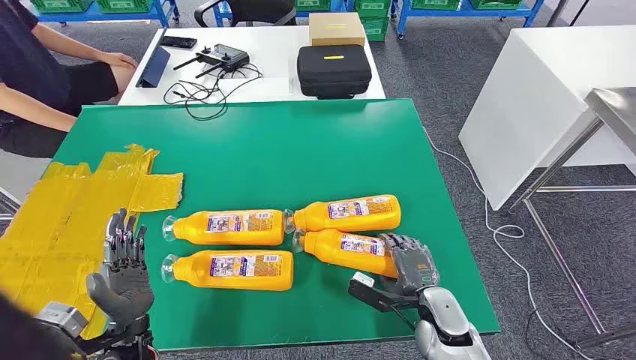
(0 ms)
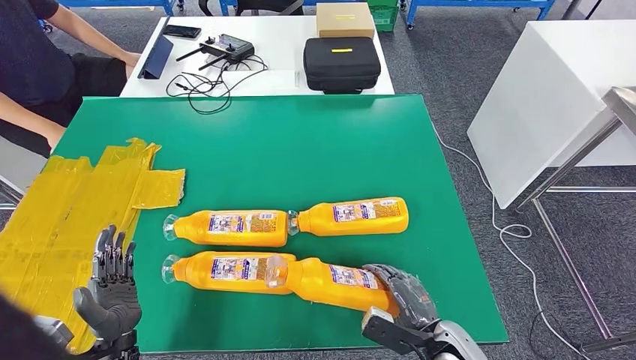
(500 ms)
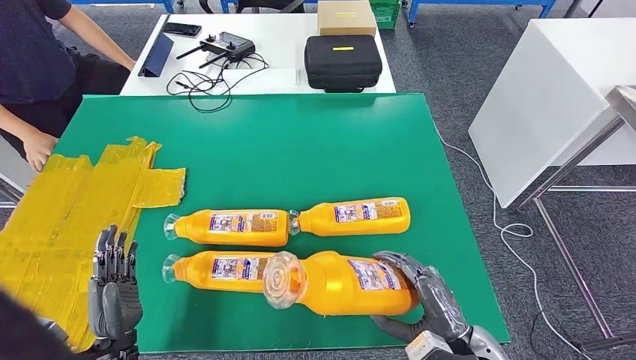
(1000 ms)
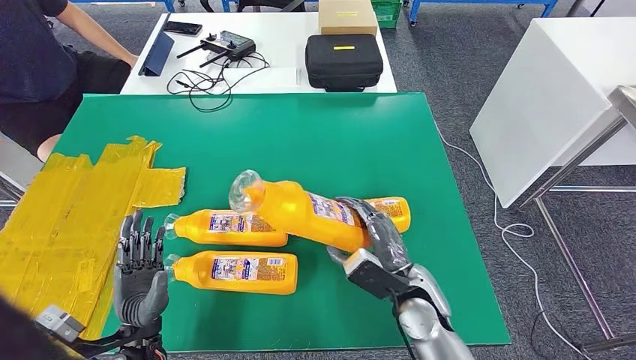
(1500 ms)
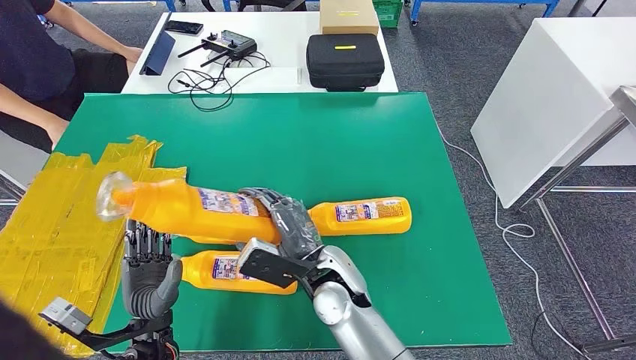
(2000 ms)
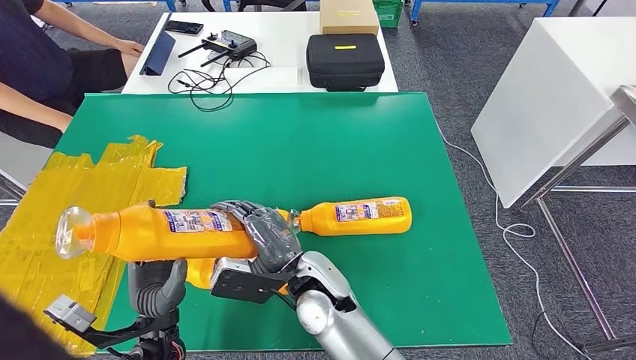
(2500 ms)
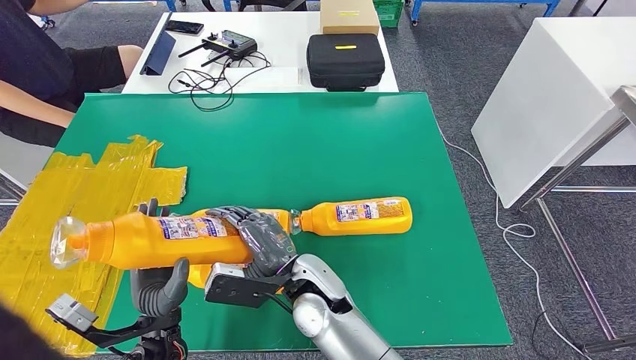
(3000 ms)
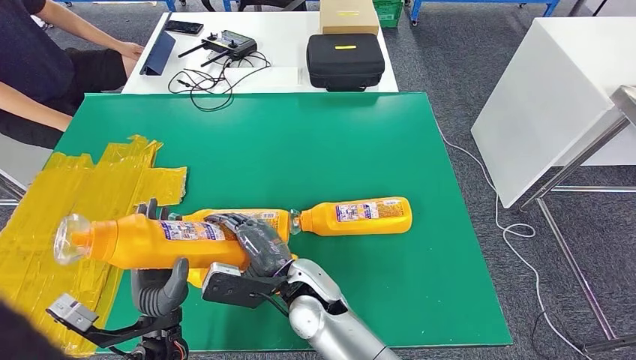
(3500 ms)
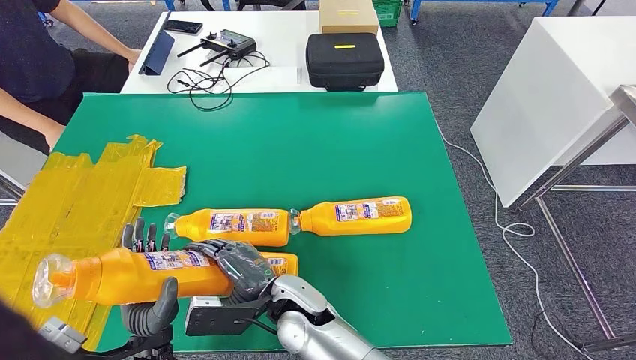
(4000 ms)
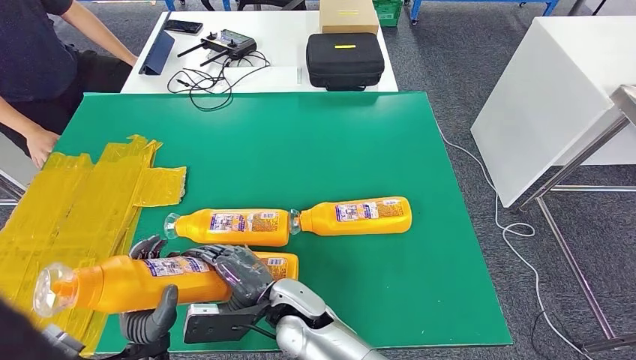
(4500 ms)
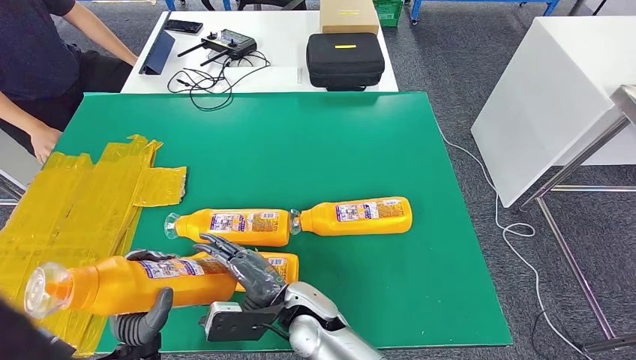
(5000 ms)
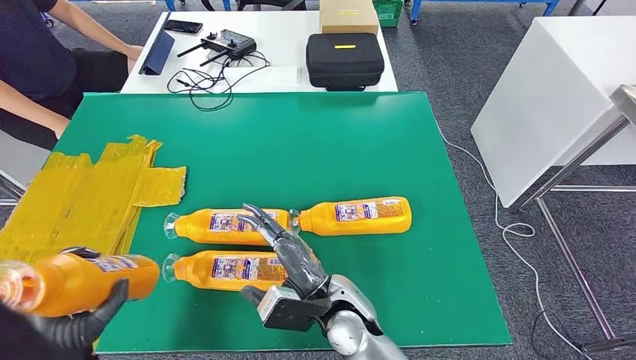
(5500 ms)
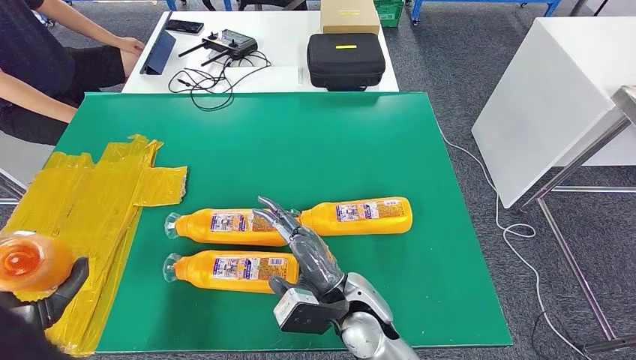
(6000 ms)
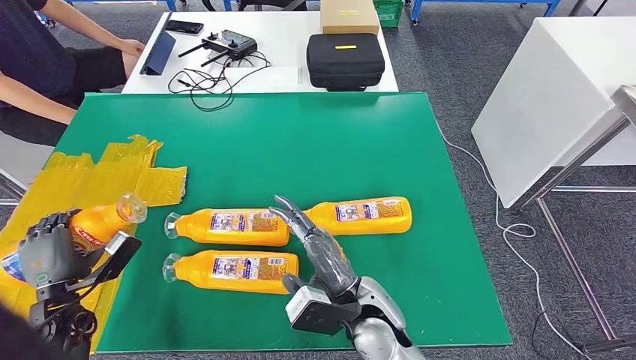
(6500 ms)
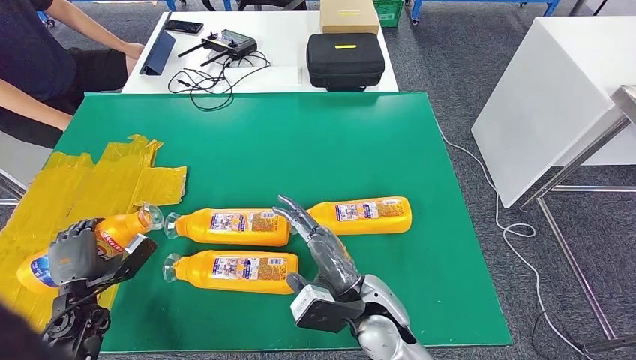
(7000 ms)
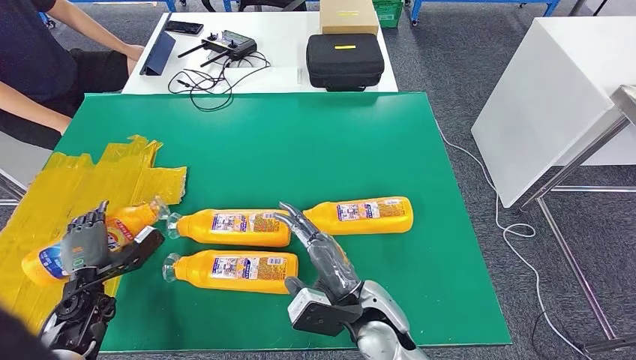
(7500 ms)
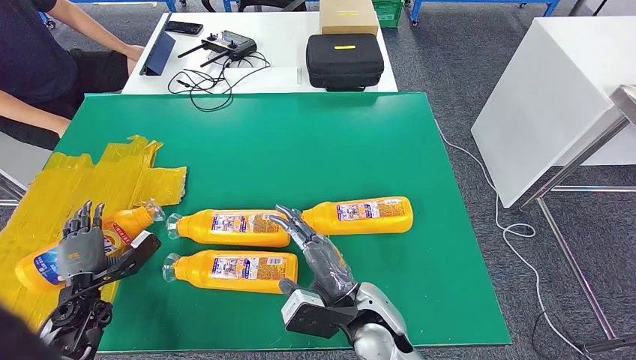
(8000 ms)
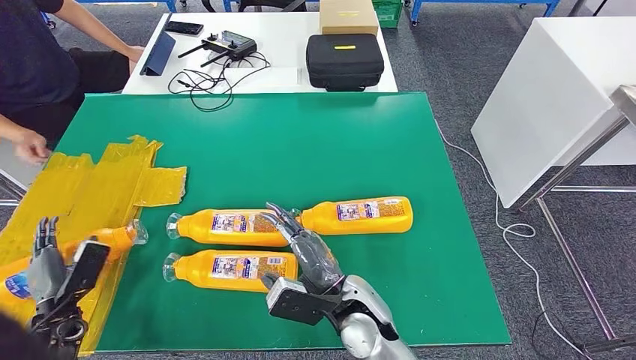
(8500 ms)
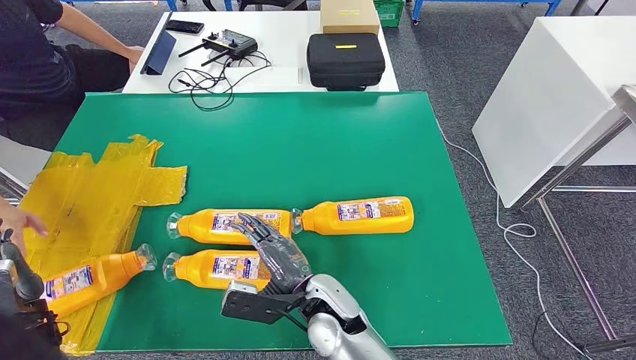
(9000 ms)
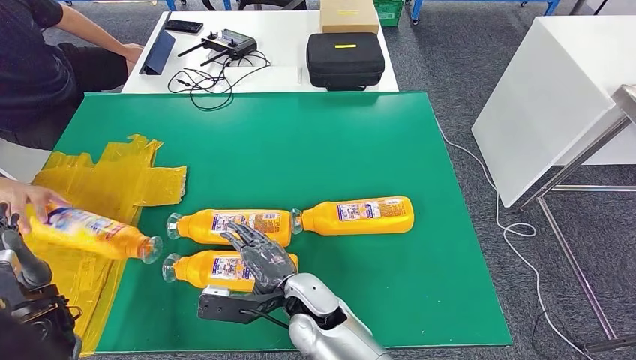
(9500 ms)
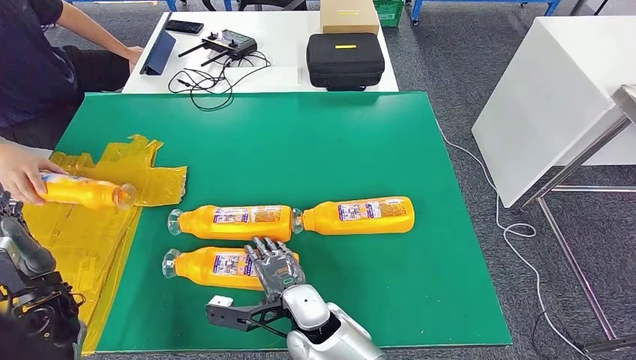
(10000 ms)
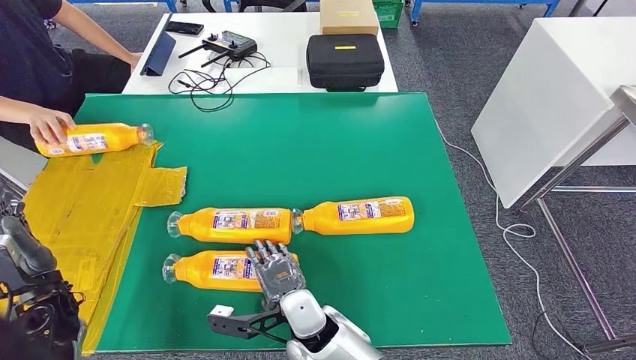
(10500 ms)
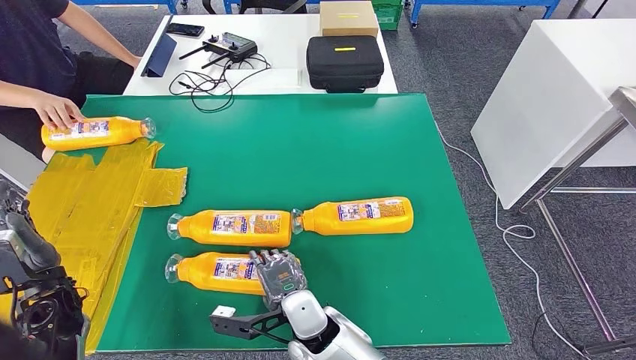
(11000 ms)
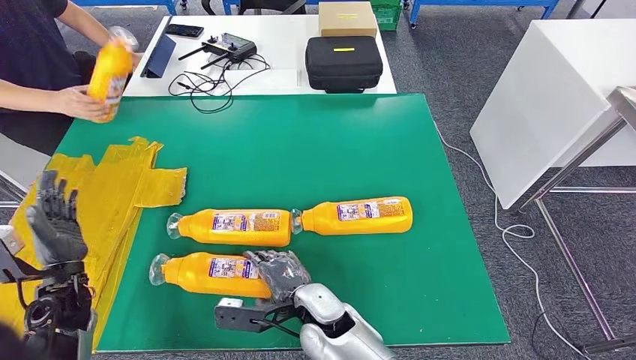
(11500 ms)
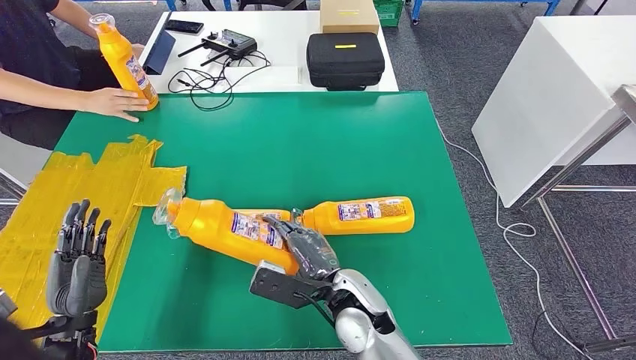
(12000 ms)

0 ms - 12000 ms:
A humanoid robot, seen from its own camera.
Step, 0 ms - 1500 ms: Take the bottle from the table.
Step, 3000 ms - 9000 ms: Flip the bottle to face forward.
2000 ms - 4000 ms: The right hand moves some 5 cm.
4000 ms - 6000 ms: The left hand goes about 15 cm to the left. Meanwhile the right hand moves to the right, some 5 cm.
6000 ms - 8000 ms: The left hand heads downward and forward, covering approximately 10 cm.
8000 ms - 10000 ms: The right hand goes about 5 cm to the left; the left hand is displaced upward by about 5 cm.
10000 ms - 12000 ms: The right hand shifts approximately 5 cm to the right. The left hand travels backward and to the right by some 10 cm.

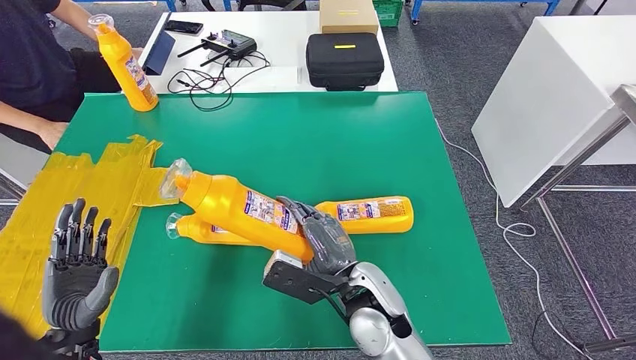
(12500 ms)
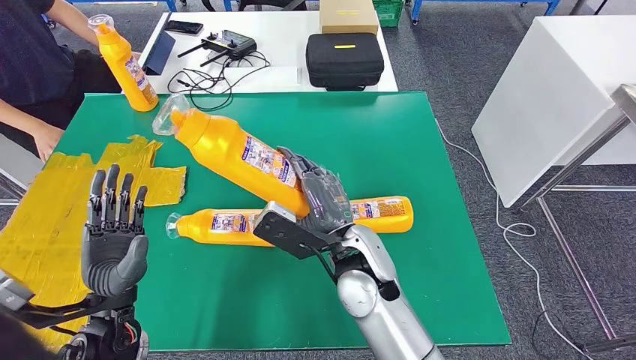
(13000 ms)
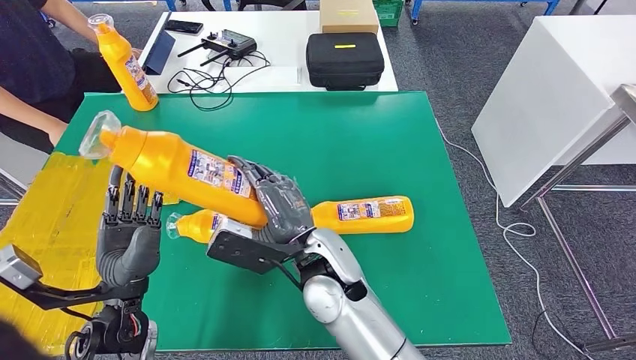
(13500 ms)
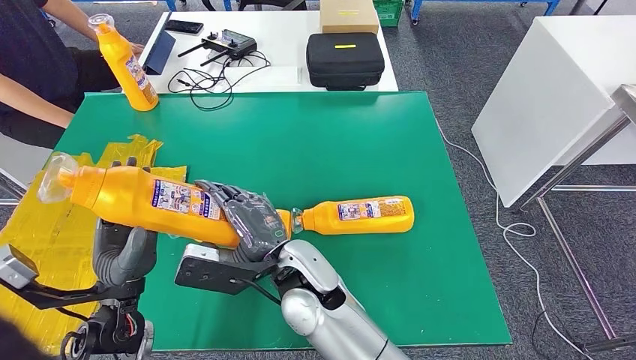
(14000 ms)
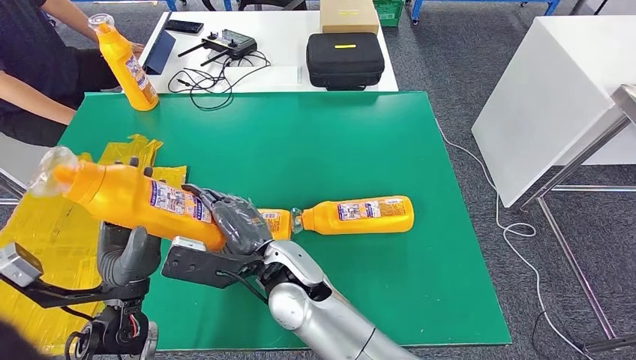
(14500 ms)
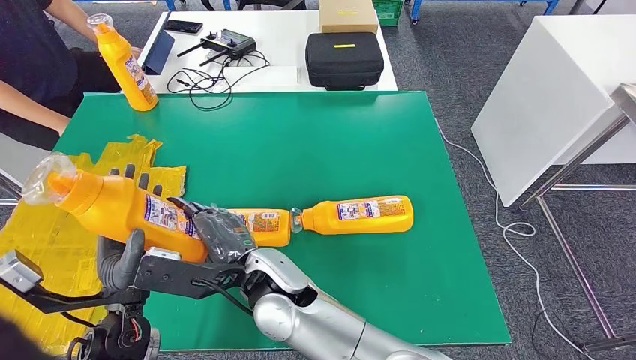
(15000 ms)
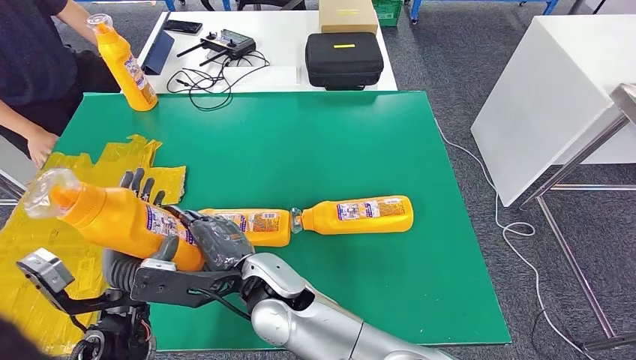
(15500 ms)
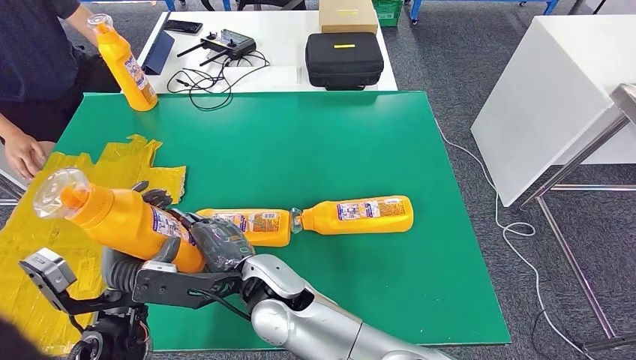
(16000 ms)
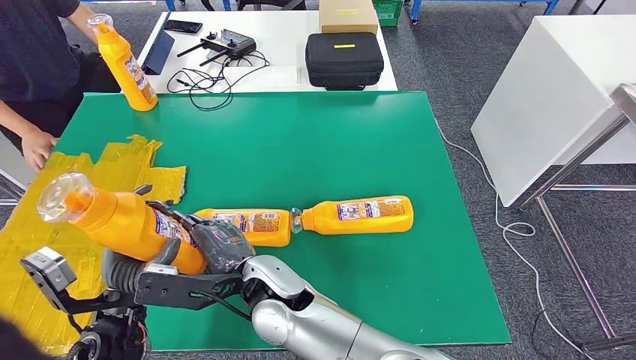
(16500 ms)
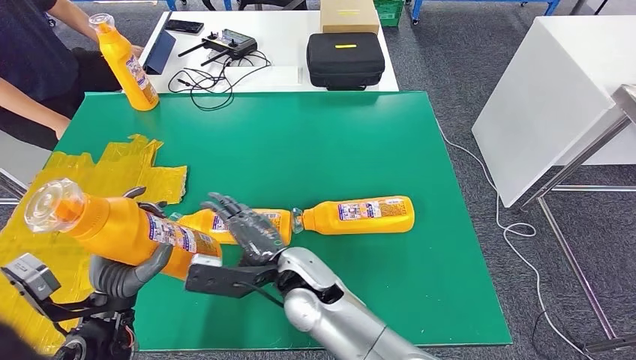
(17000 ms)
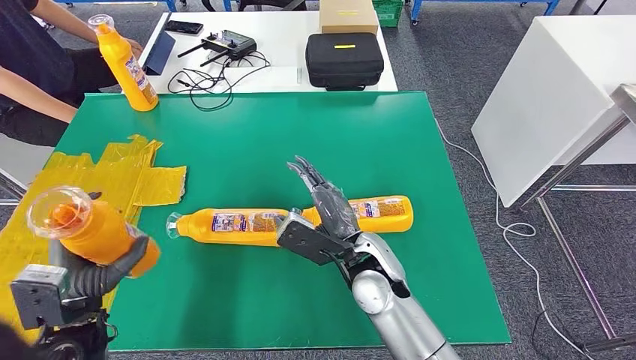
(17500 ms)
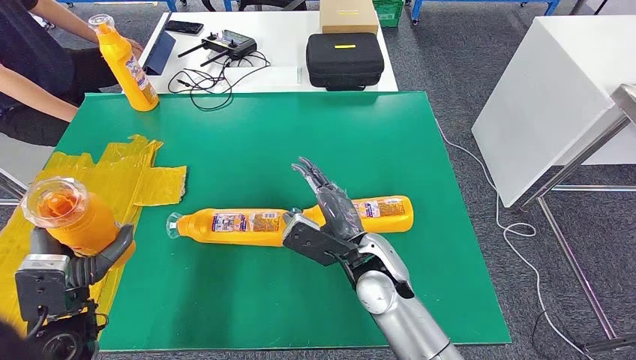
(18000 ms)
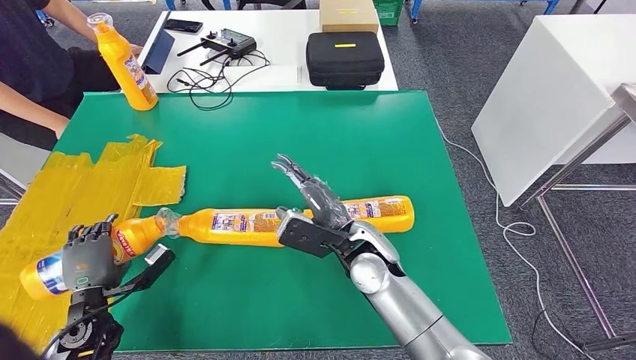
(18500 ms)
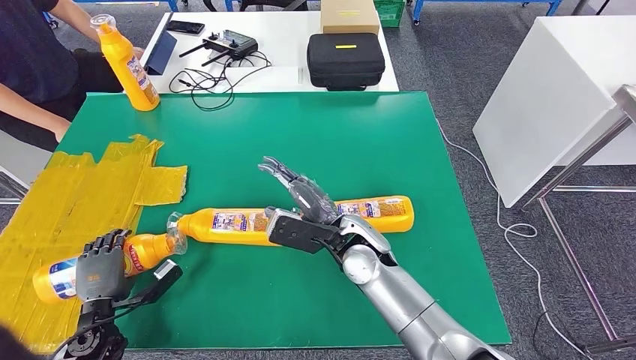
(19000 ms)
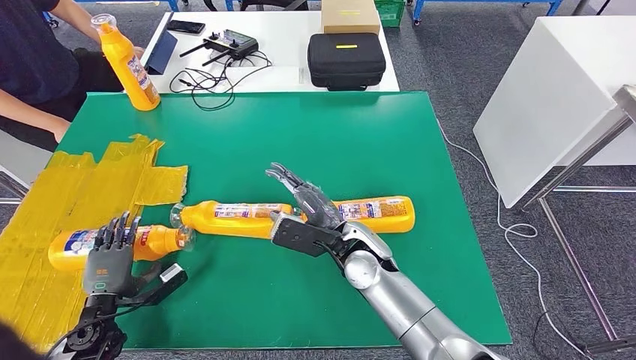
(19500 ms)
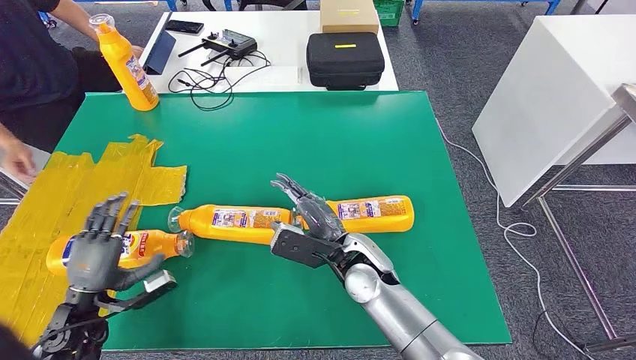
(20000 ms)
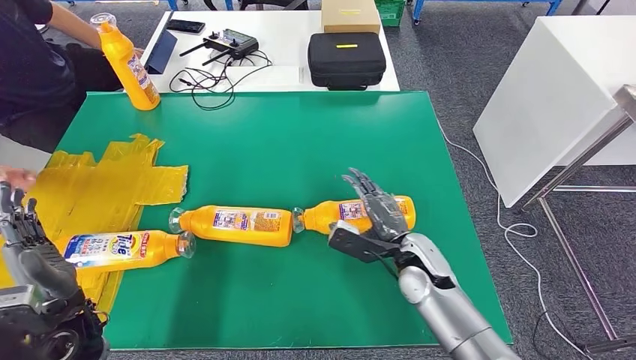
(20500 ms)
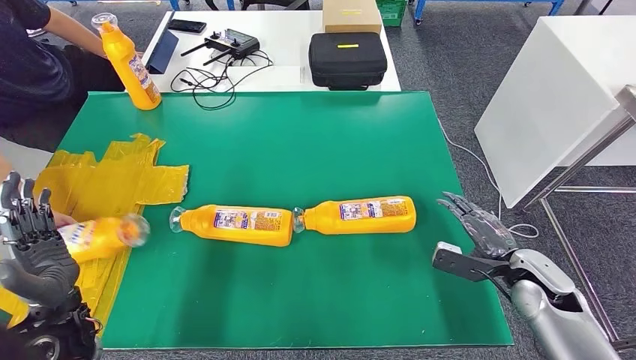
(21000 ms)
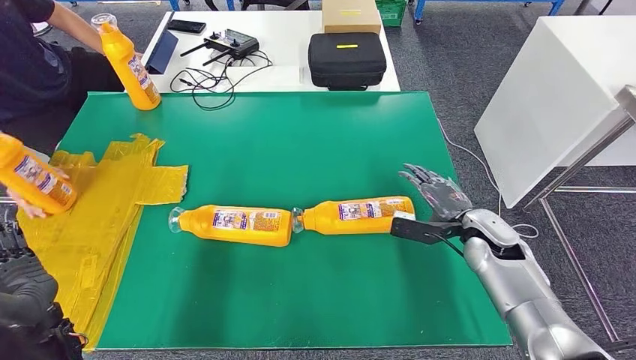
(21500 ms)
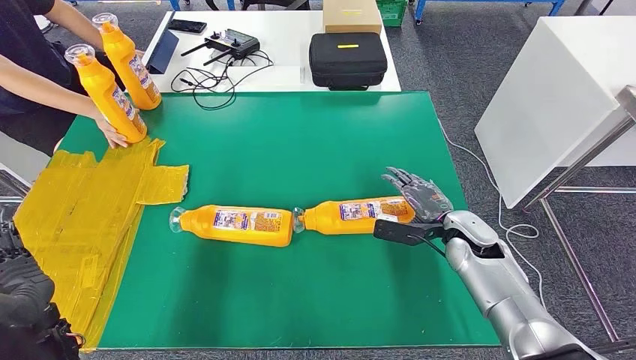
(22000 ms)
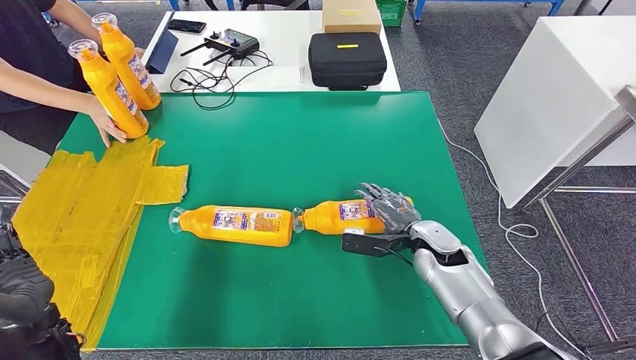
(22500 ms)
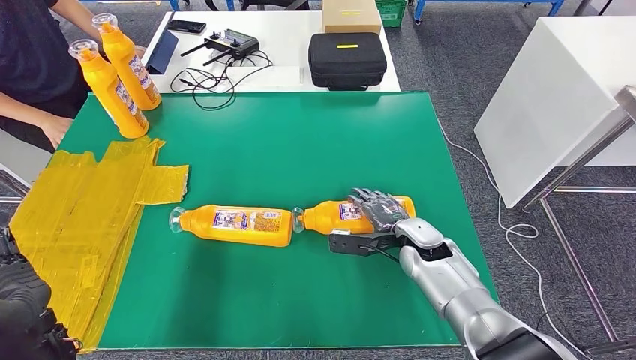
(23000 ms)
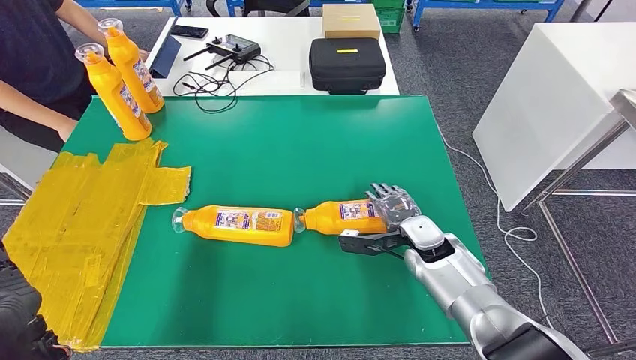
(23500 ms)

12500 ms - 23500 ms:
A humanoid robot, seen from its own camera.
Step, 14500 ms - 19500 ms: Flip the bottle to face forward.
18000 ms - 20000 ms: The left hand moves downward and to the left, some 10 cm.
